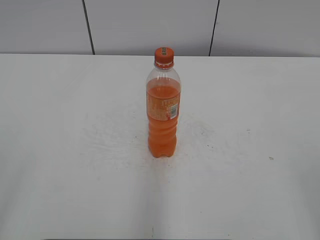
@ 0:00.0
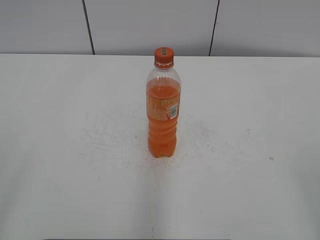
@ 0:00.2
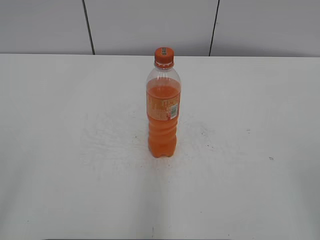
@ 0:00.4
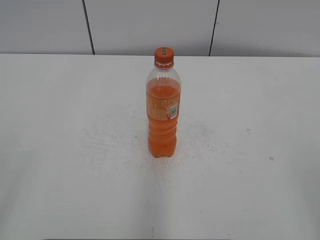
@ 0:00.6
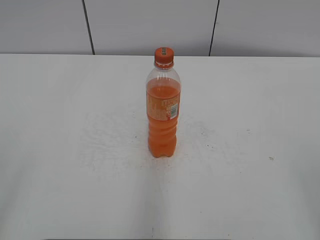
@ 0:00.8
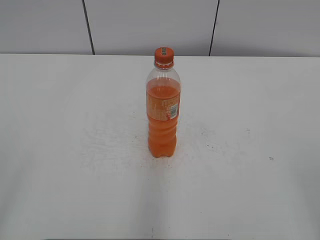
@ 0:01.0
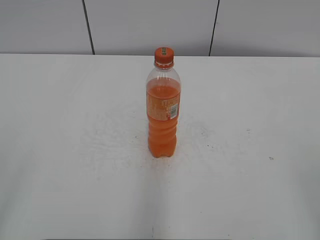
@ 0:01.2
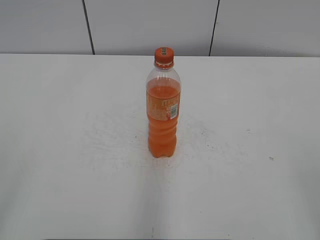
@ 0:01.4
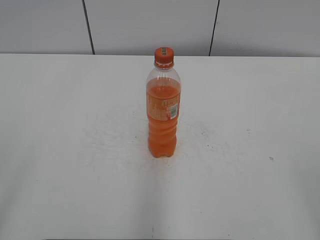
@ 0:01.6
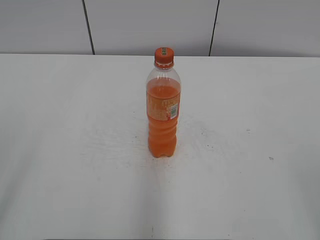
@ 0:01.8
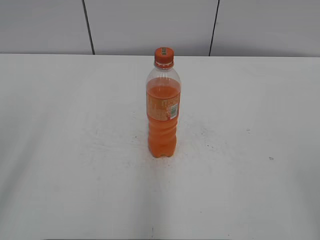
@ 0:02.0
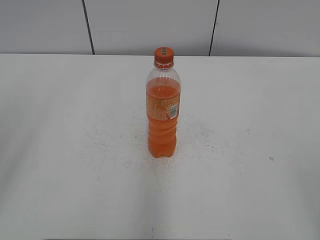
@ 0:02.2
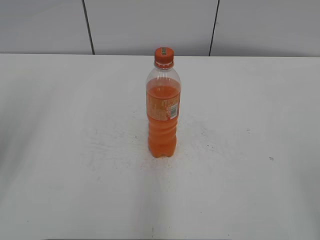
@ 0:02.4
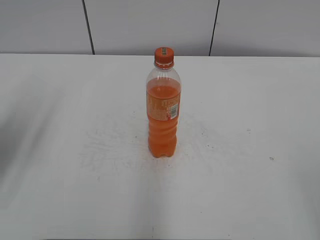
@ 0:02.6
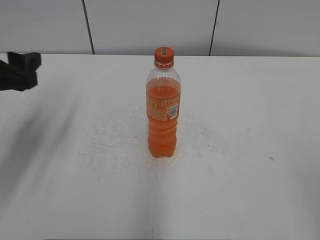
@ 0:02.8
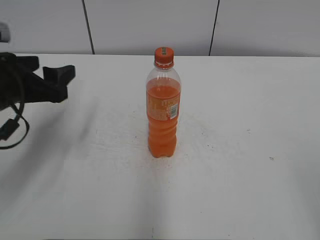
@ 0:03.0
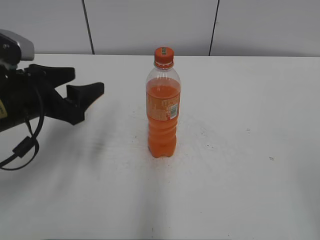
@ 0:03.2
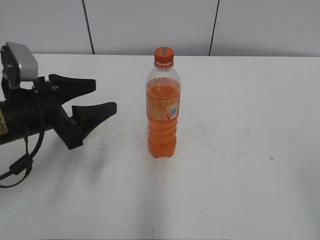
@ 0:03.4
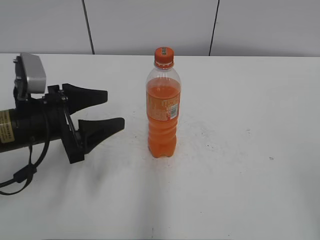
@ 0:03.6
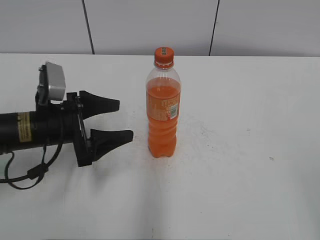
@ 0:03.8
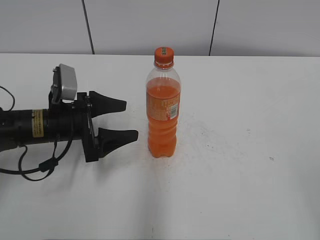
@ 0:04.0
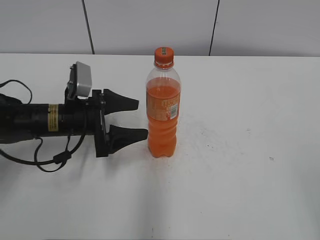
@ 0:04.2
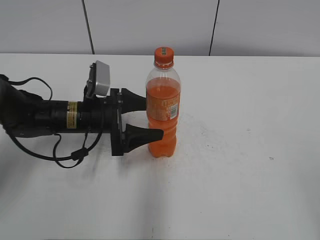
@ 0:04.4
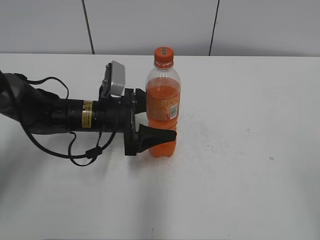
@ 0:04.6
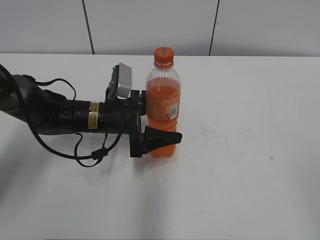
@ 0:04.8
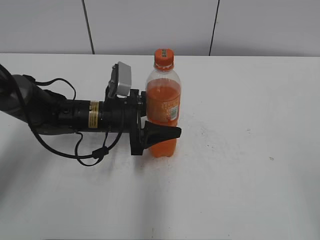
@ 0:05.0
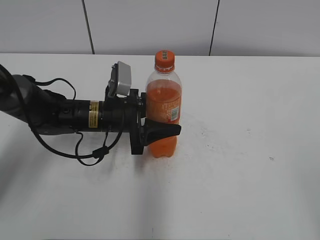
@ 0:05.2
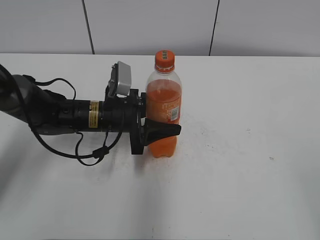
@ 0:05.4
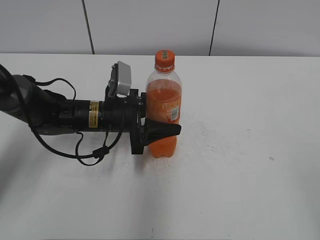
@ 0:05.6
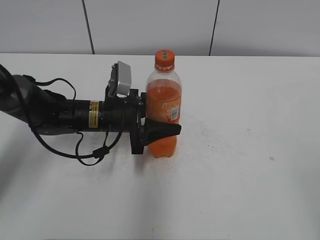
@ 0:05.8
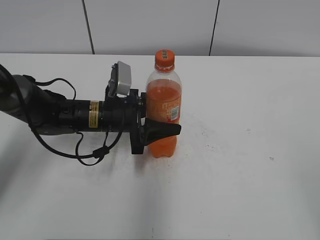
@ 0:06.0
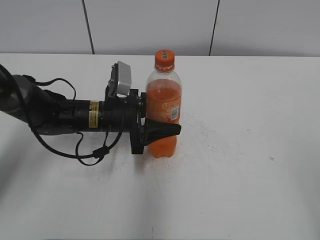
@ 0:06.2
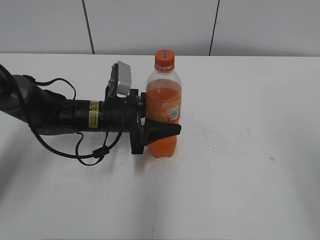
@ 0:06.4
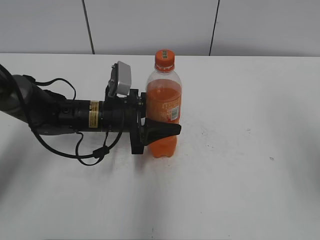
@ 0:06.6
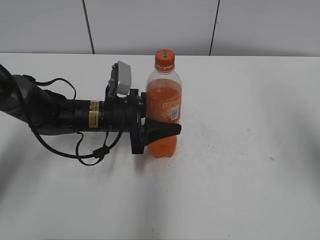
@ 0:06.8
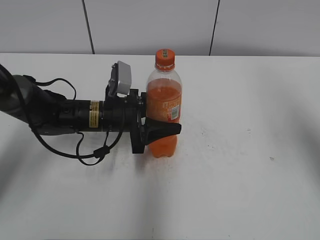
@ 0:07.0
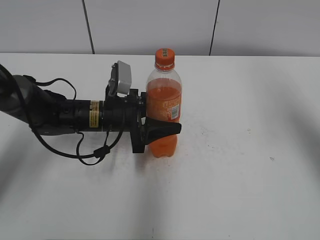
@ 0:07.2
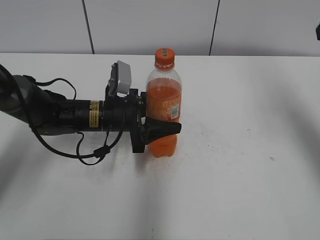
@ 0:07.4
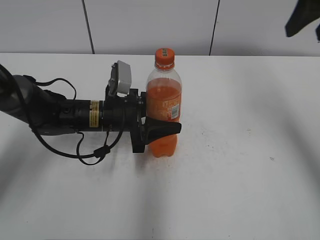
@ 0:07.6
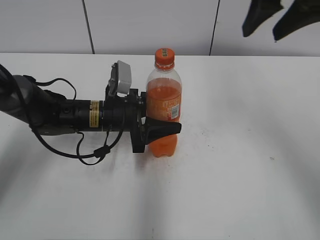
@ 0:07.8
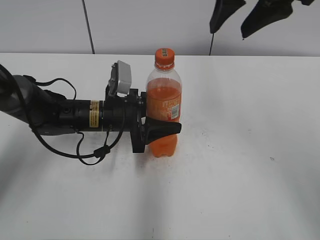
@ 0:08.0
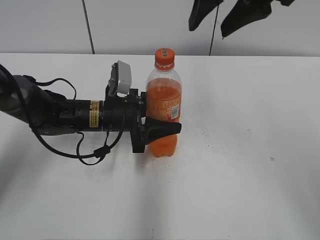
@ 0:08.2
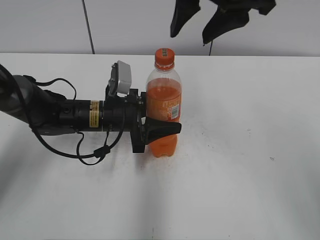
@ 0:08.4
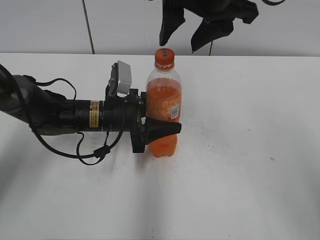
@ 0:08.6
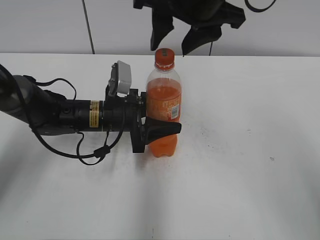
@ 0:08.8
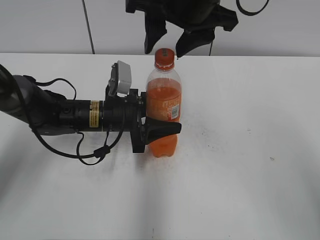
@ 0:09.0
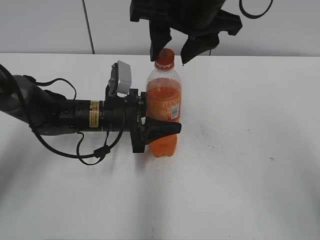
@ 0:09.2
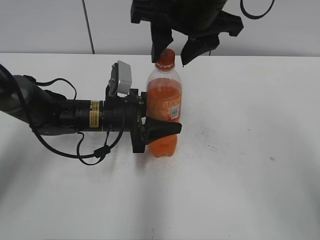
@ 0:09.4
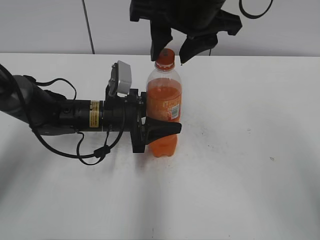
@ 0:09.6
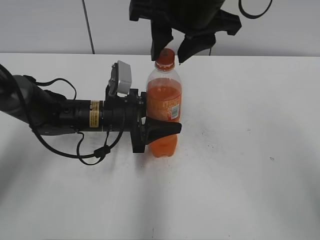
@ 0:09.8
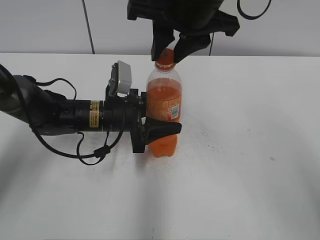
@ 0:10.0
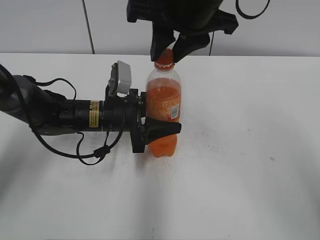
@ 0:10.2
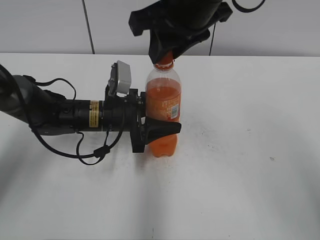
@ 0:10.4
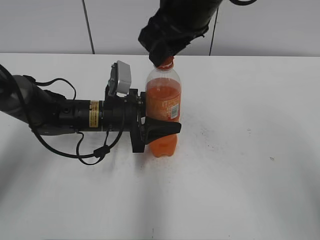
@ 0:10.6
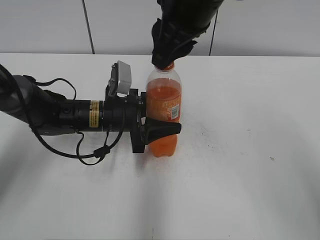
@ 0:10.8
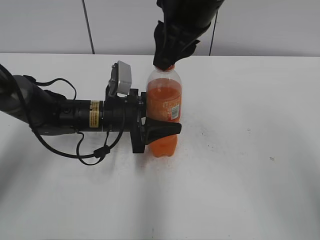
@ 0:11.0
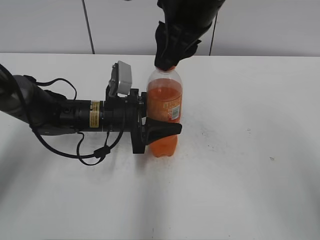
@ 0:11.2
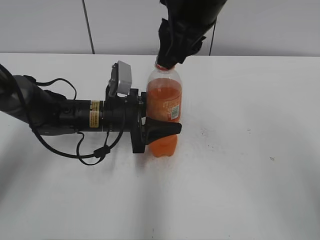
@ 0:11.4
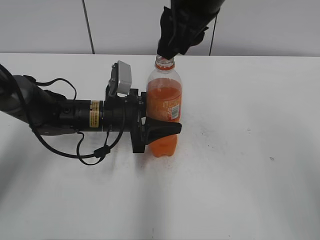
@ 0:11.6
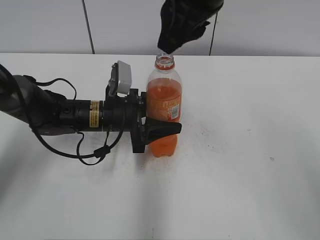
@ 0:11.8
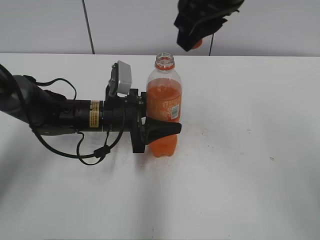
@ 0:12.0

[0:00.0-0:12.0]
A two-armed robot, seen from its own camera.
Step, 0:00.0 to 0:05.2: Grab the Mirinda with the left hand.
0:01.6 to 0:03.0: The left gripper travels forward by approximately 25 cm.
0:03.0 to 0:04.4: The left gripper moves downward, to the right and forward, roughly 15 cm, and opens its fingers.
0:04.4 to 0:06.0: The left gripper closes up.
0:06.0 to 0:07.6: The right gripper travels forward by about 30 cm.
0:07.6 to 0:09.0: The right gripper goes about 20 cm to the left.
0:09.0 to 0:10.4: The right gripper closes its fingers.

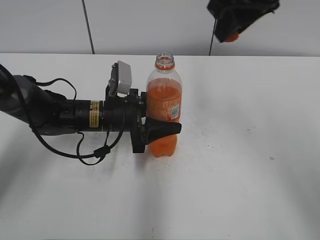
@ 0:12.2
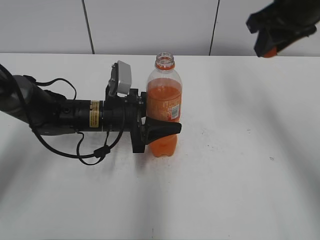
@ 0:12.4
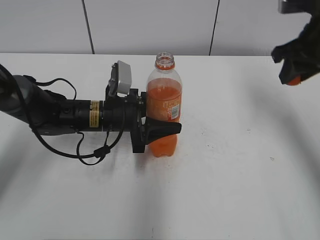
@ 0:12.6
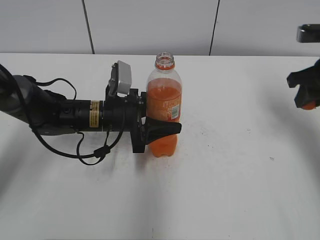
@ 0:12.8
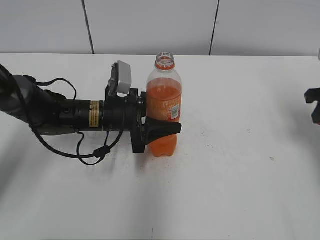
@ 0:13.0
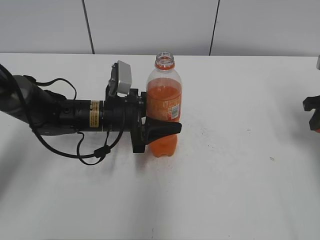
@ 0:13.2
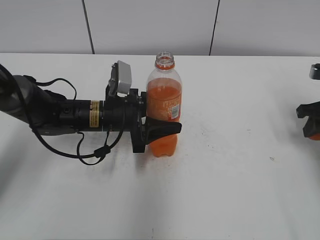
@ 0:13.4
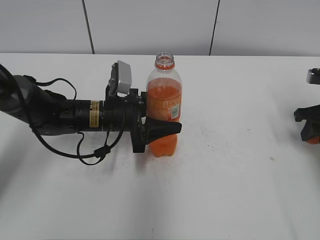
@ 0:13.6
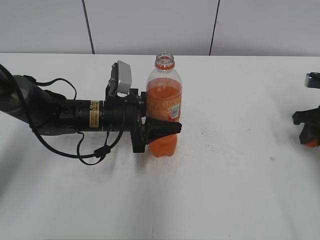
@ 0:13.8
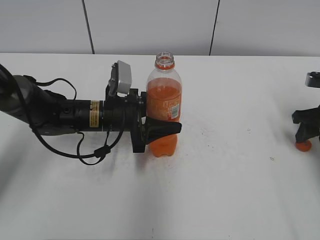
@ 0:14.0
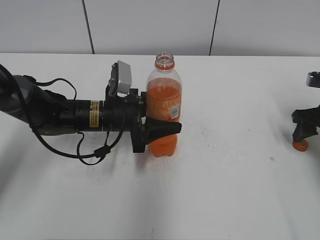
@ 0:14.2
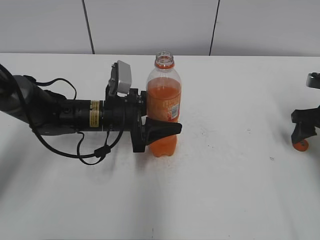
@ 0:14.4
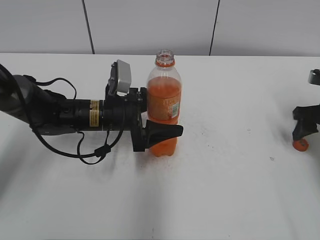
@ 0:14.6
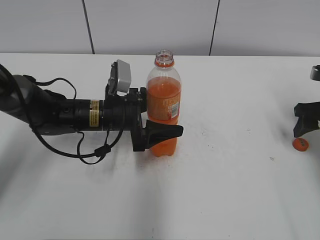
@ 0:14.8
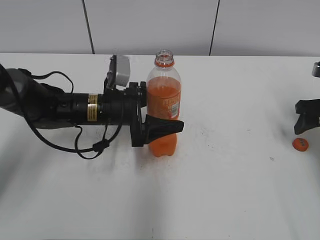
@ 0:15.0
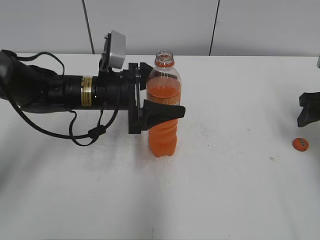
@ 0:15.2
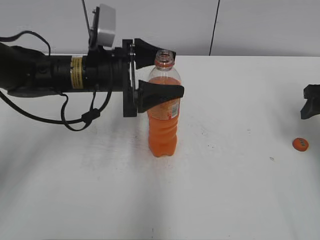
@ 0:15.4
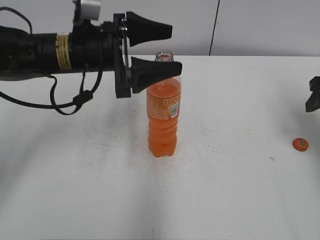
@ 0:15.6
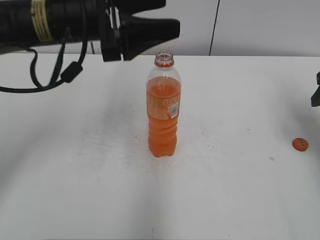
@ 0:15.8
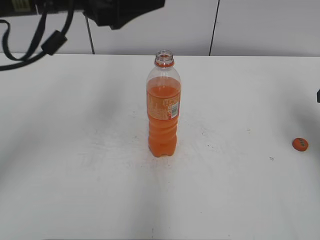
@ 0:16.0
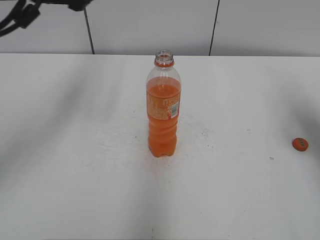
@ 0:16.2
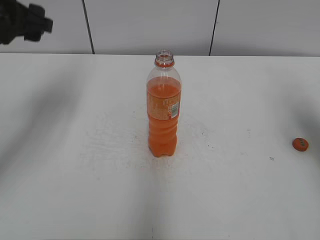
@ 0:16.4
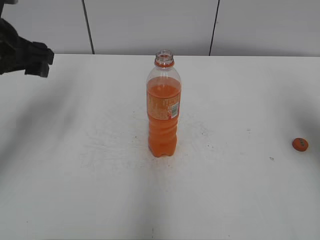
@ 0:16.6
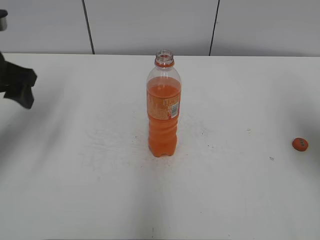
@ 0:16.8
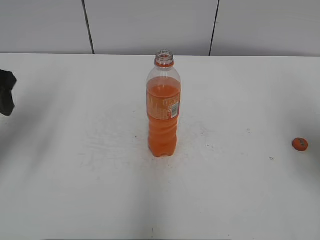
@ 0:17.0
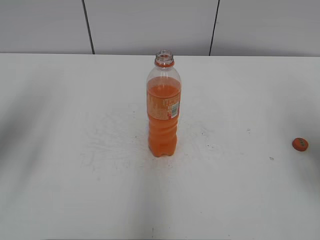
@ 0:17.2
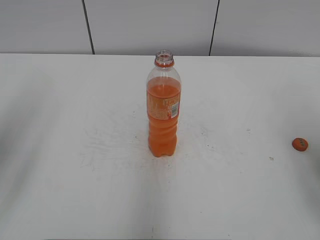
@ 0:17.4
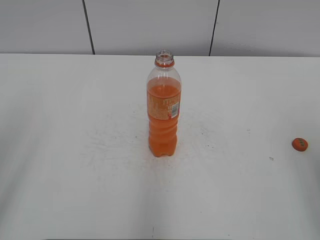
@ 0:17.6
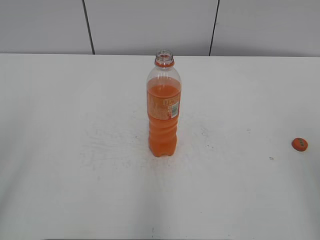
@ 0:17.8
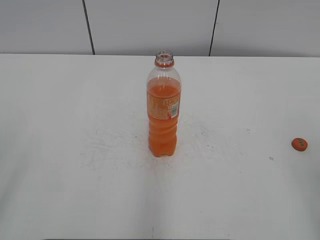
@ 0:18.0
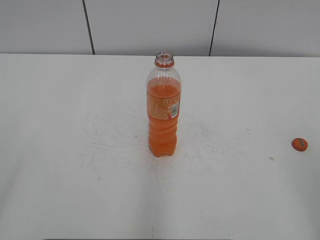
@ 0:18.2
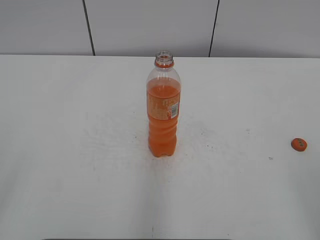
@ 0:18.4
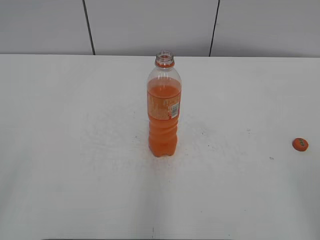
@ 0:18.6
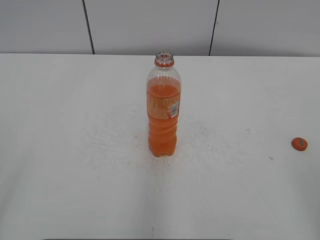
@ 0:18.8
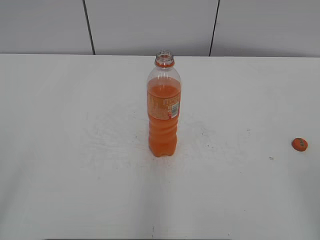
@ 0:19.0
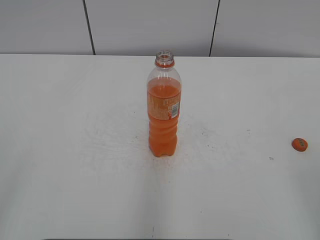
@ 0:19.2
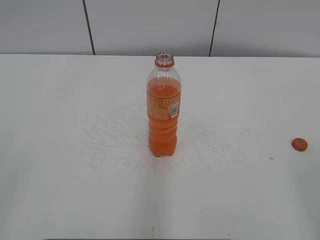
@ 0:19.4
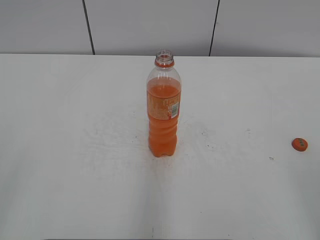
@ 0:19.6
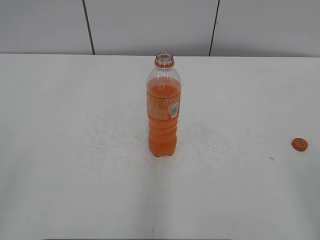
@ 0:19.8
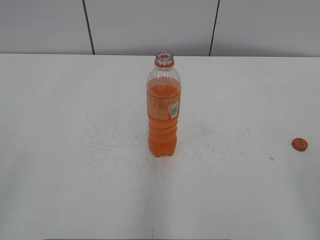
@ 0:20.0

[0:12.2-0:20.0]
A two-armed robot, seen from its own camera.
Step, 0:12.2 to 0:14.0: Place the bottle cap on the right.
0:12.2 to 0:13.8: The right gripper travels downward and to the right by approximately 30 cm.
0:13.8 to 0:15.4: The left gripper is displaced upward by about 10 cm, and opens. The right gripper travels upward by about 5 cm, and opens its fingers.
0:15.4 to 0:16.8: The right gripper travels upward and backward by some 10 cm. Meanwhile the left gripper shifts approximately 15 cm to the left and upward.
0:16.8 to 0:18.4: The grippers both shift backward by about 30 cm.
